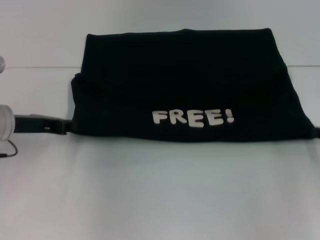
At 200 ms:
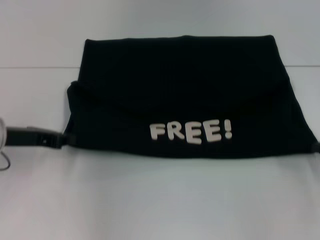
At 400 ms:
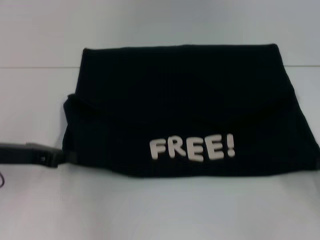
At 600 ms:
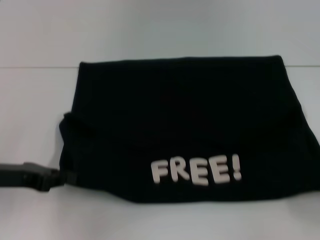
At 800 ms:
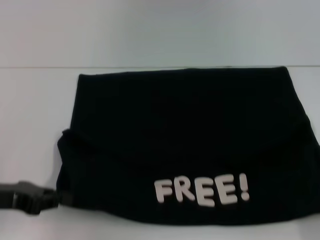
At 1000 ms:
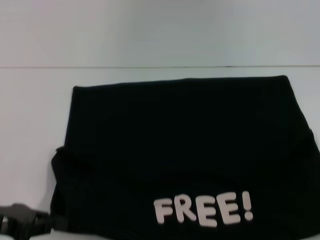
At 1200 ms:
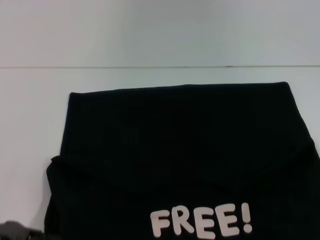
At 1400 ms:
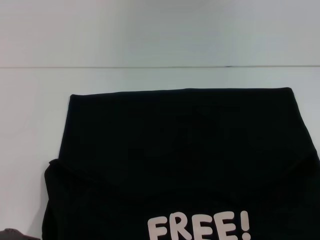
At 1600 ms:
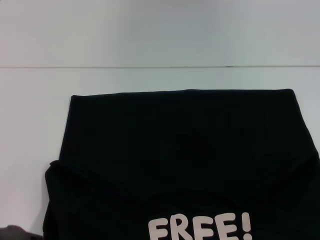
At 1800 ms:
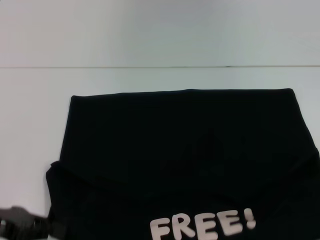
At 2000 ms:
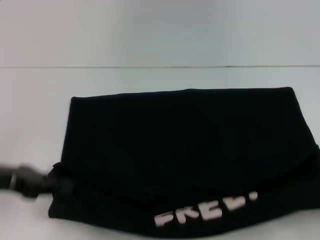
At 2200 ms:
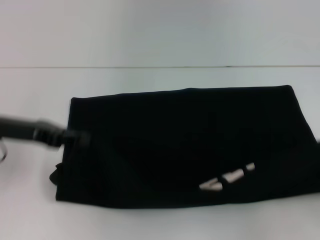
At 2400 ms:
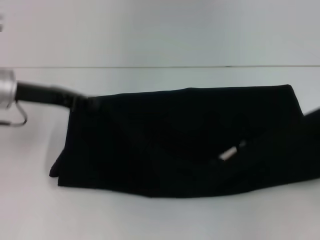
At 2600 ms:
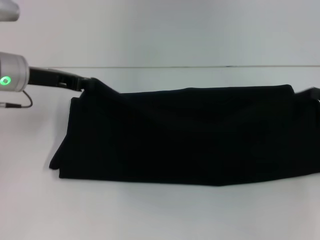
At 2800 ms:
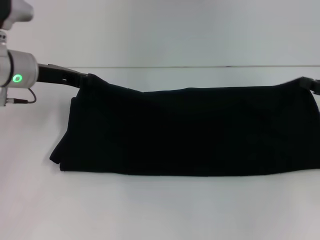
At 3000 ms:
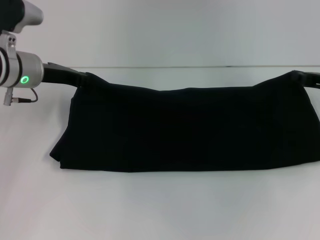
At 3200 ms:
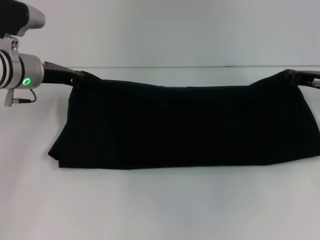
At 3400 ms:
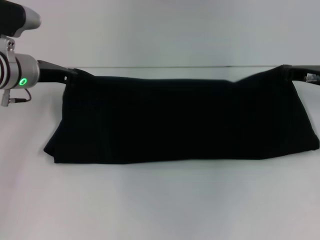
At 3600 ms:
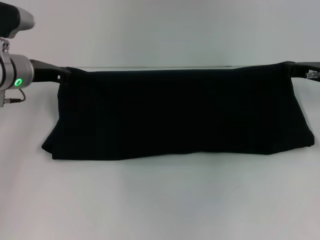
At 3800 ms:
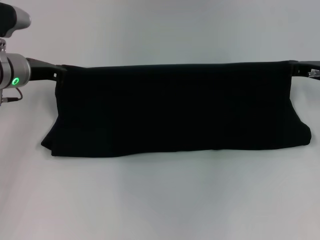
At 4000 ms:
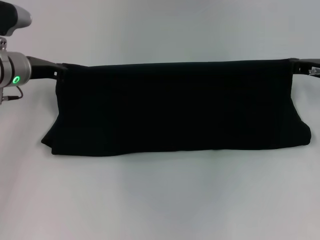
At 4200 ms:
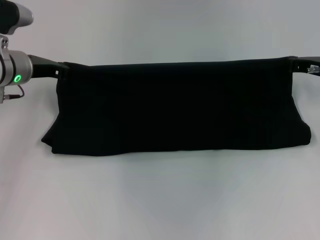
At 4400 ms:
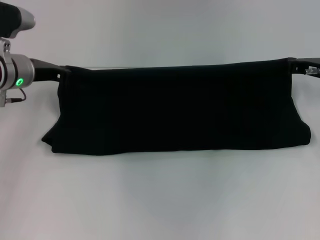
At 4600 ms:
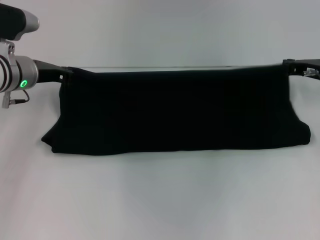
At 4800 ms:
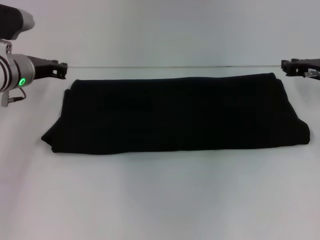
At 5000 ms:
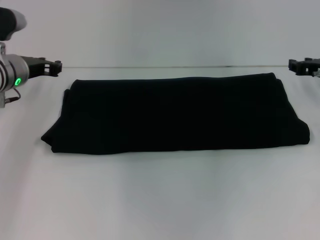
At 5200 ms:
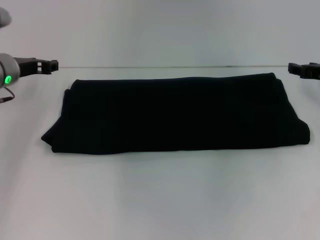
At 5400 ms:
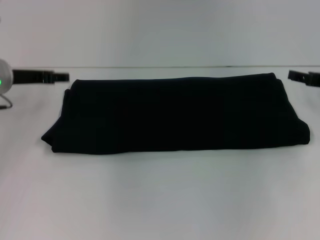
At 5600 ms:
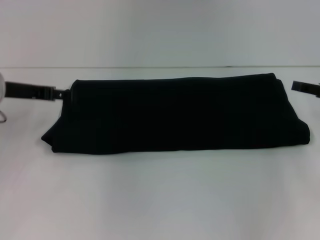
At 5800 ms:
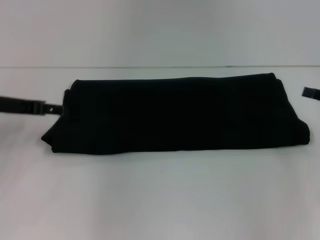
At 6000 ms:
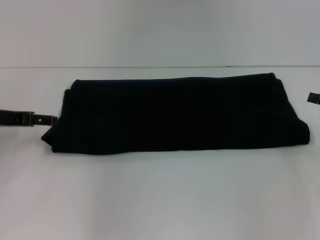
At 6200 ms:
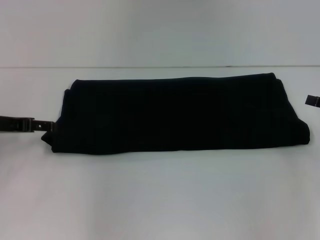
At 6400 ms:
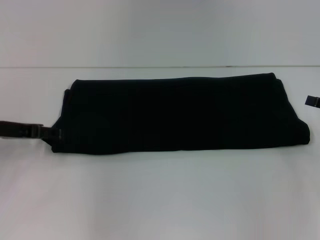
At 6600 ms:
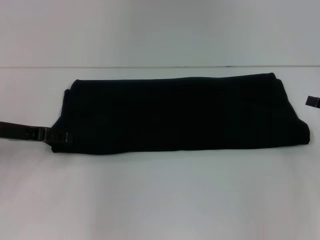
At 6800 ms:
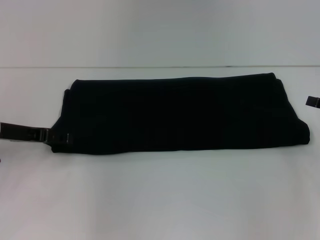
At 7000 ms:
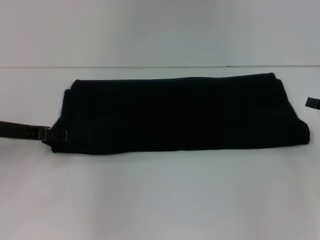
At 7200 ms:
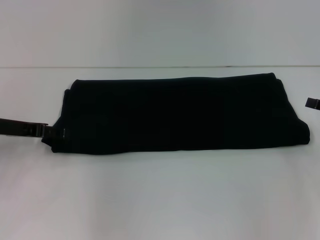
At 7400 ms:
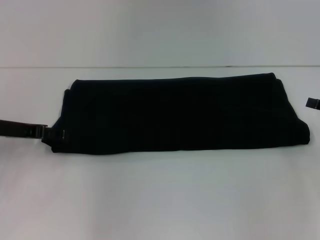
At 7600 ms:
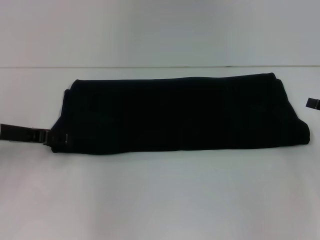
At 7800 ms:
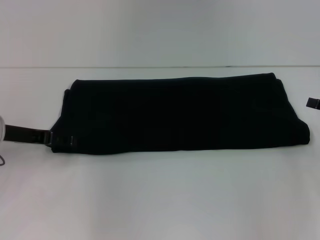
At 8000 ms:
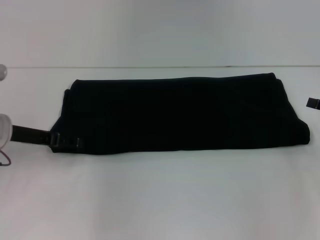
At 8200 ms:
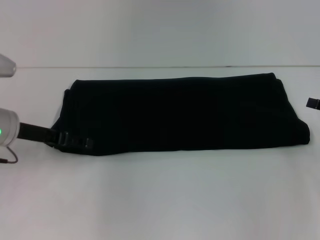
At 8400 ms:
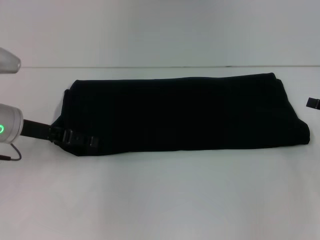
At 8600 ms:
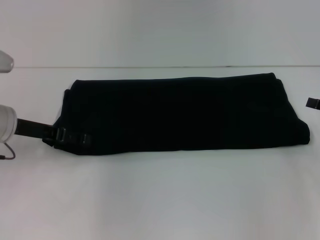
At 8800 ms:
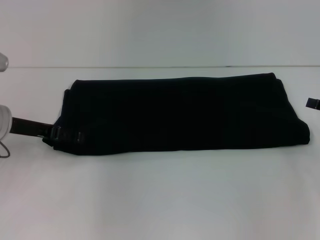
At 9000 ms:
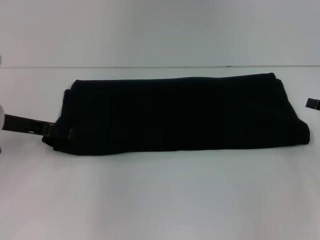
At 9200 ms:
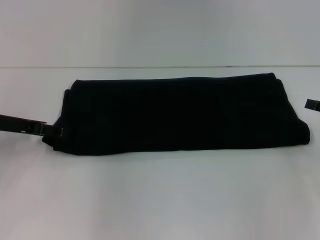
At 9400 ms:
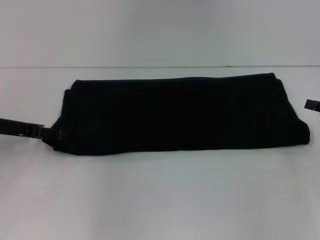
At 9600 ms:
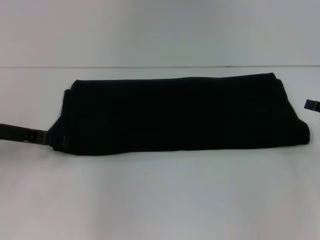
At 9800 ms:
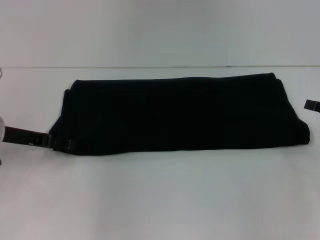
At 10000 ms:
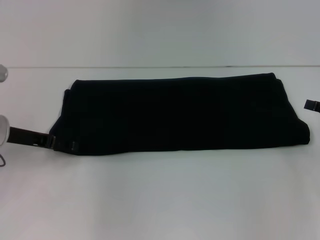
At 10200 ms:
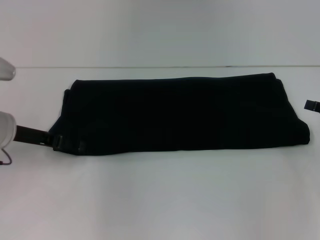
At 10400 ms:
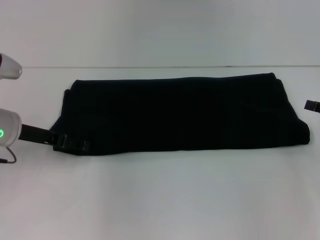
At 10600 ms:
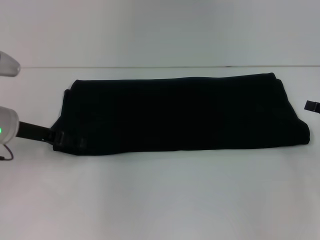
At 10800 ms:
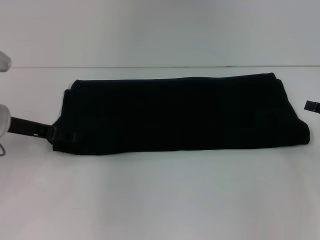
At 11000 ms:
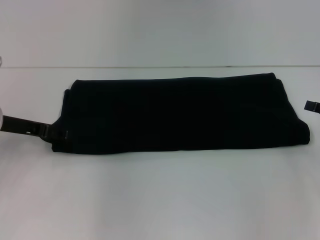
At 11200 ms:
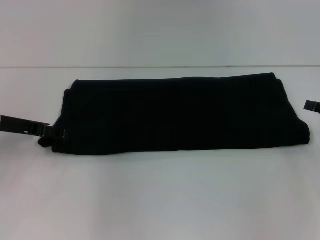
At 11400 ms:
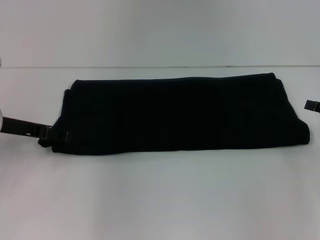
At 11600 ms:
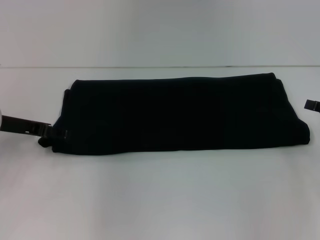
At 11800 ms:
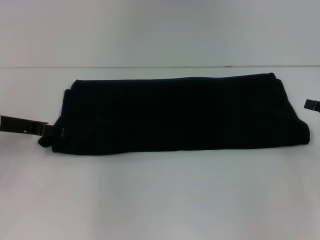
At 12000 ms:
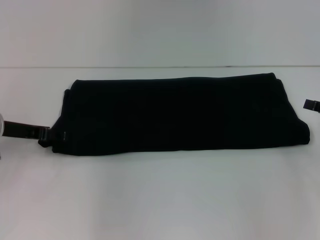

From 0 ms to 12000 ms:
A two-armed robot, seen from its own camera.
Step, from 1600 ms to 4600 ms: Fold the clothes with your right hand.
From 0 ms to 1600 ms: The left gripper shifts some 15 cm backward; the right gripper travels backward by some 20 cm.
From 1600 ms to 3000 ms: The two grippers go some 25 cm forward.
From 3000 ms to 4400 ms: The right gripper shifts by approximately 5 cm.
From 4400 ms to 6000 ms: The right gripper is displaced backward and to the right by some 15 cm, and opens up, while the left gripper is displaced backward and to the left by approximately 10 cm, and opens up.
From 6000 ms to 12000 ms: There are only small adjustments of the grippers.

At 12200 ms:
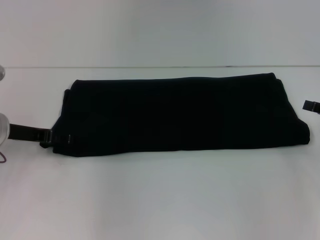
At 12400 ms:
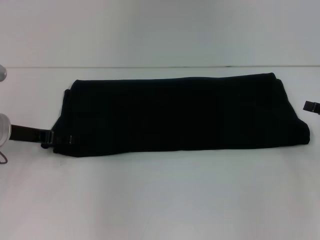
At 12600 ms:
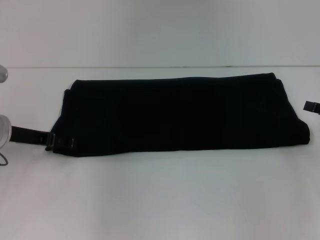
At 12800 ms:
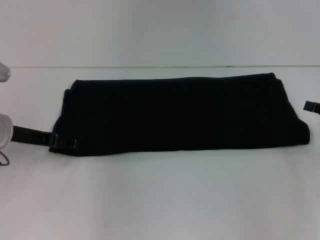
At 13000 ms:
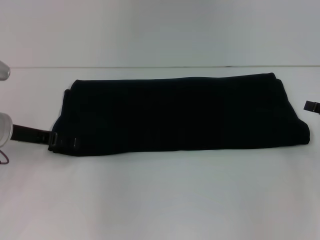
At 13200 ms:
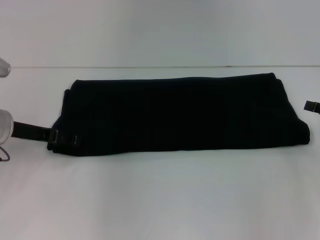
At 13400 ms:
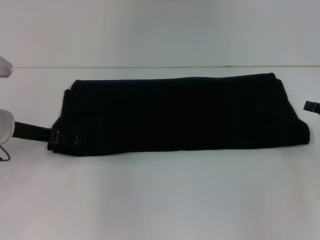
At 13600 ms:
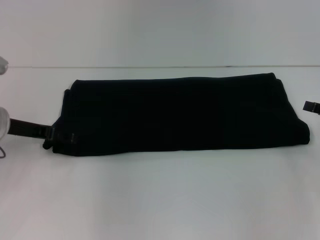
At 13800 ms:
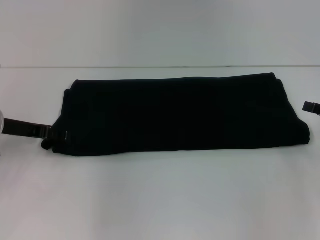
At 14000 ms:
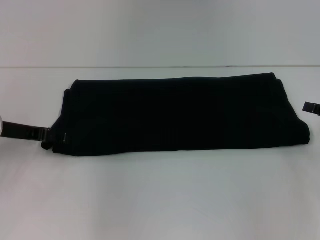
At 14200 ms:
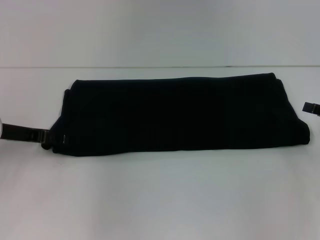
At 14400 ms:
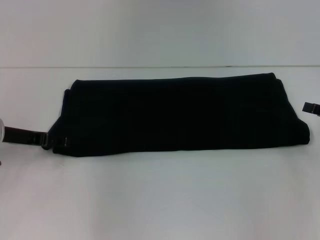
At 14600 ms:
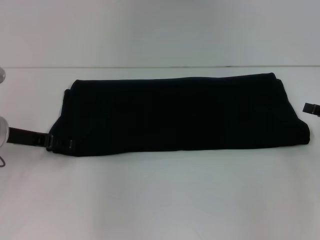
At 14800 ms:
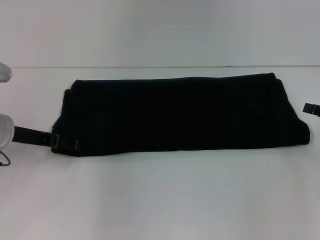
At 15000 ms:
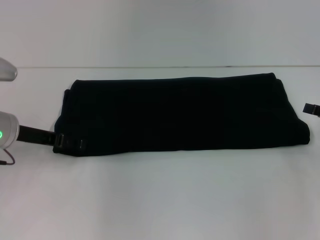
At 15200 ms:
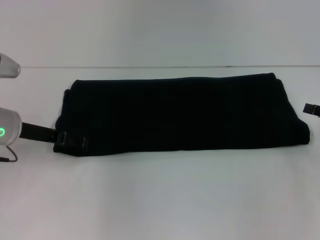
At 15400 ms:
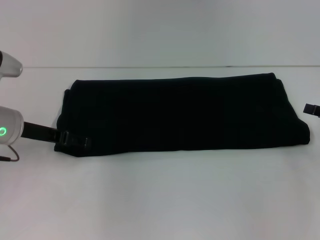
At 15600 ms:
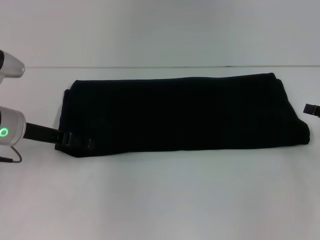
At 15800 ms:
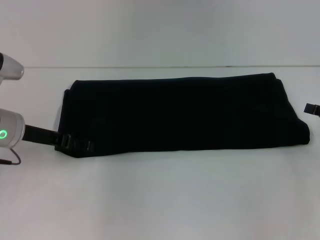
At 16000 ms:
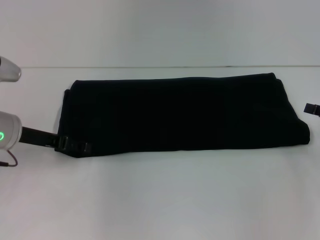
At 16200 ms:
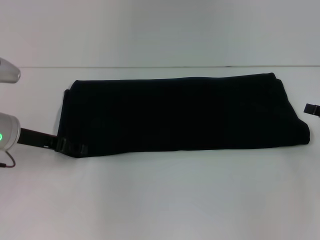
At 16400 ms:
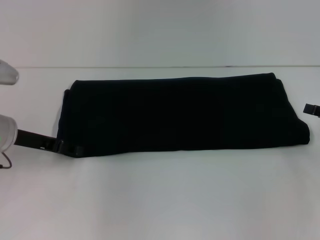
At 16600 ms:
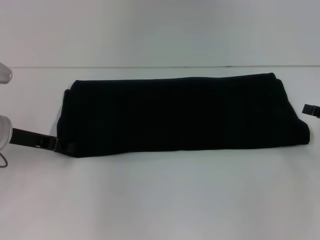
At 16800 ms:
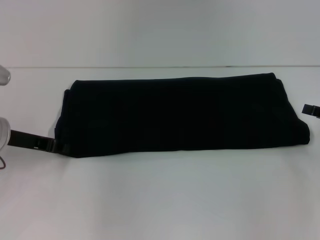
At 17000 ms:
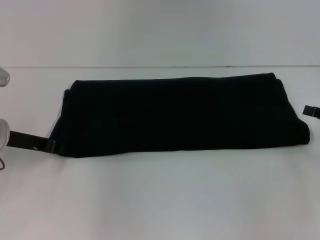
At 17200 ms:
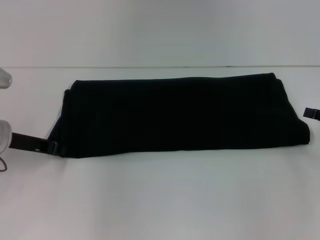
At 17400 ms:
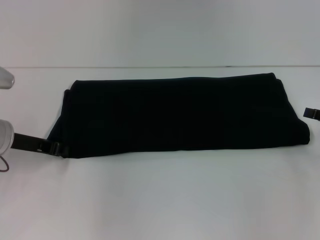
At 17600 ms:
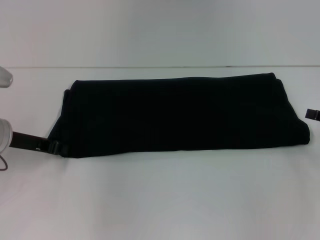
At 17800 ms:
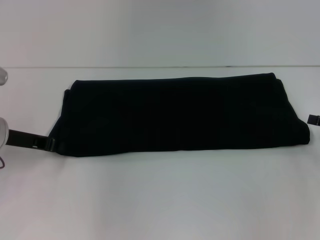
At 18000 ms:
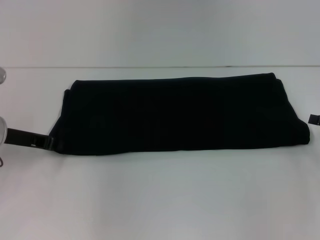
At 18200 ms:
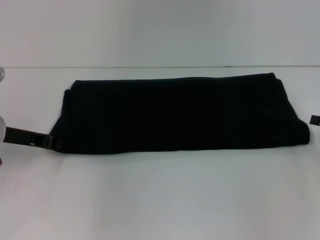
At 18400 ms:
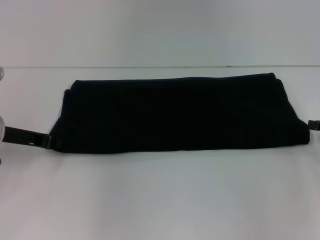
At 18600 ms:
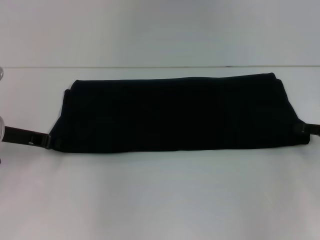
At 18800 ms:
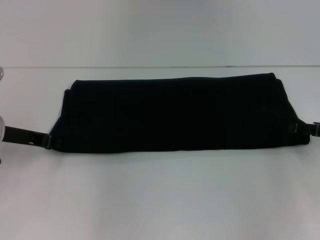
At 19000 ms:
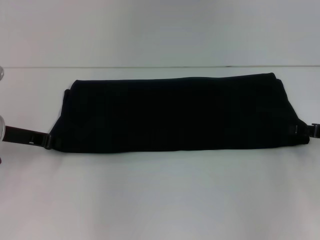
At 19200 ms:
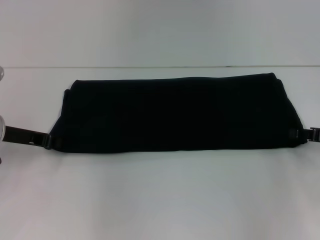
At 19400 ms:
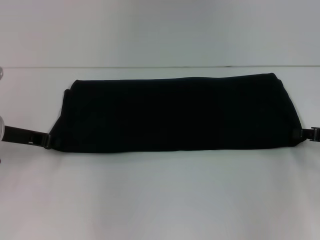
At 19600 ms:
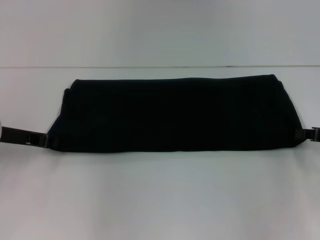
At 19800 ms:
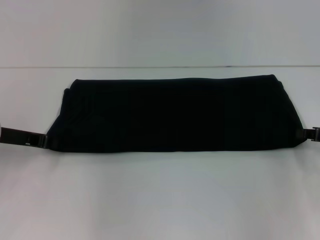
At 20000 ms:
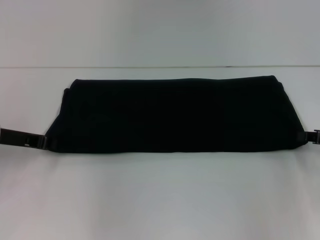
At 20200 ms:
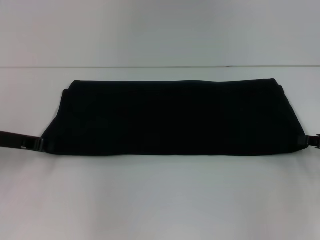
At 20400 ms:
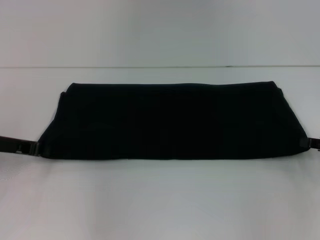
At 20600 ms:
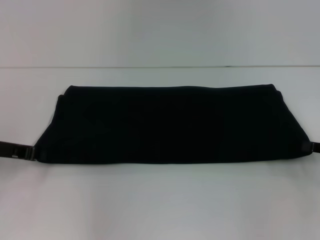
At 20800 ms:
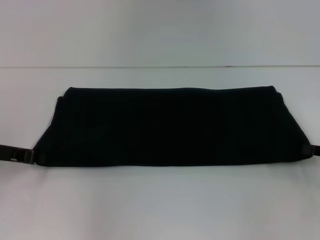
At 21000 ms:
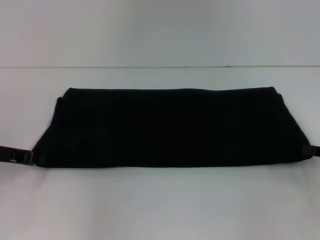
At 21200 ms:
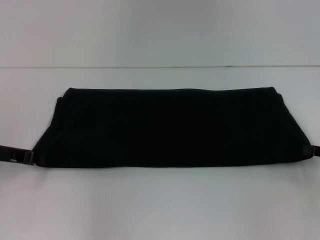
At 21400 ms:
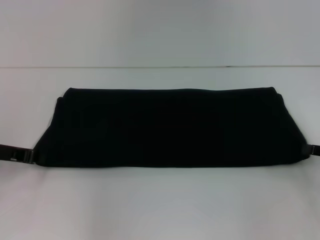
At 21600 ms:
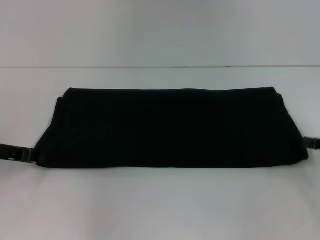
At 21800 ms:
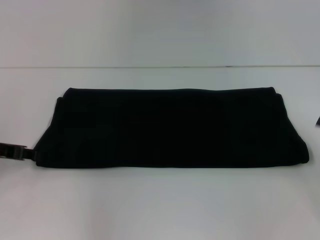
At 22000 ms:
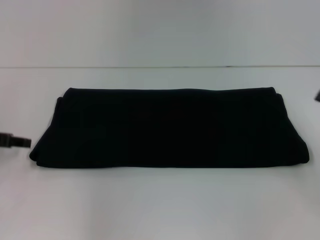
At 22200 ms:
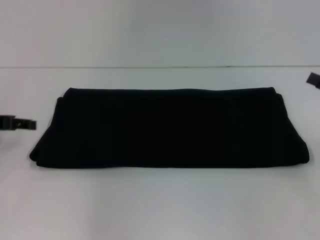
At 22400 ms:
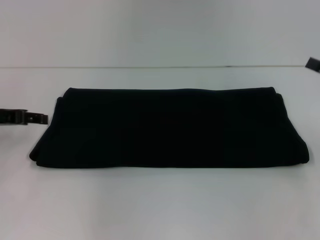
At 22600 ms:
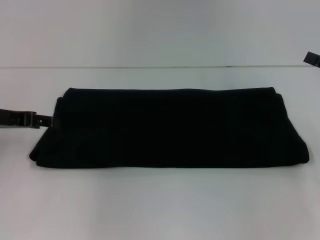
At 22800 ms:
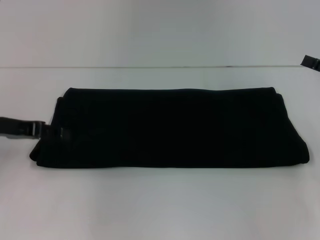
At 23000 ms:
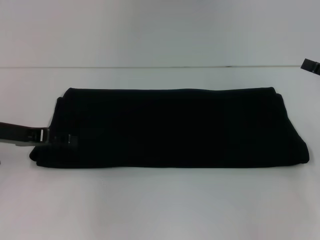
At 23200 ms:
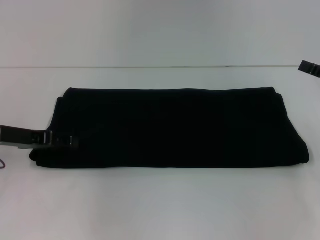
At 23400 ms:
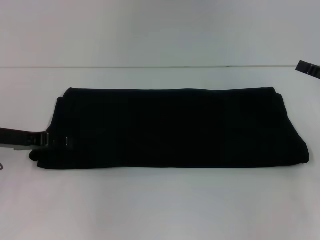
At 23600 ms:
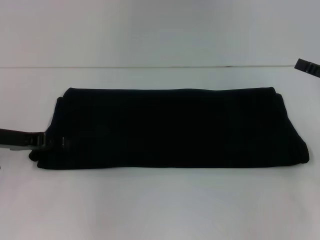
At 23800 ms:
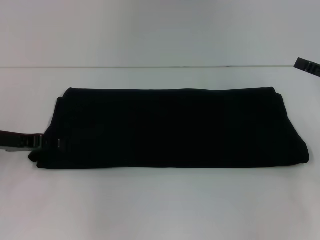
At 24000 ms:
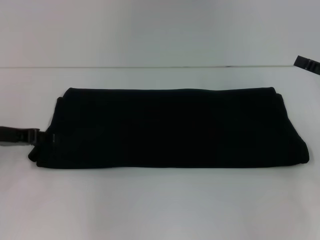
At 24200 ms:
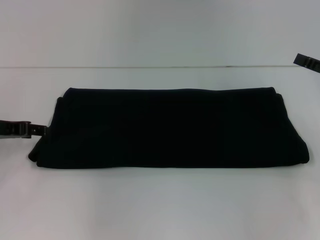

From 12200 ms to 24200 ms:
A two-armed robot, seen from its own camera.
From 12200 ms to 16600 ms: There are only small adjustments of the grippers.
From 16600 ms to 18200 ms: The left gripper closes.
From 18200 ms to 19800 ms: The right gripper closes.
From 19800 ms to 21200 ms: There are only small adjustments of the grippers.
From 21200 ms to 22600 ms: The right gripper moves upward, approximately 5 cm, and opens. The left gripper opens.
From 22600 ms to 24200 ms: There are only small adjustments of the grippers.
